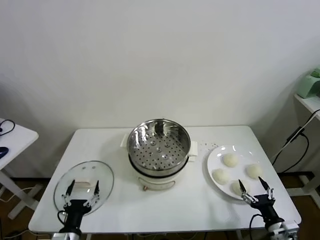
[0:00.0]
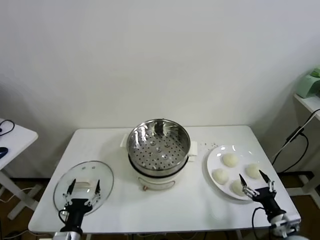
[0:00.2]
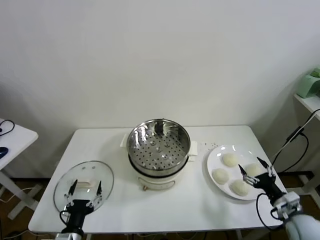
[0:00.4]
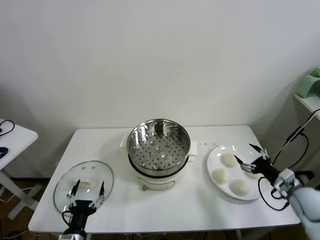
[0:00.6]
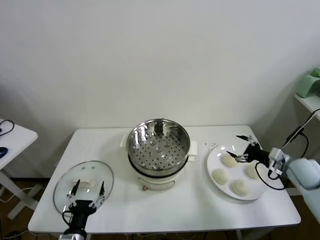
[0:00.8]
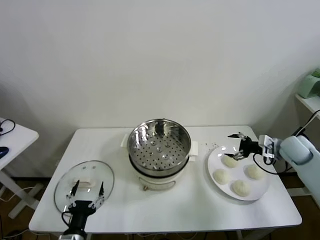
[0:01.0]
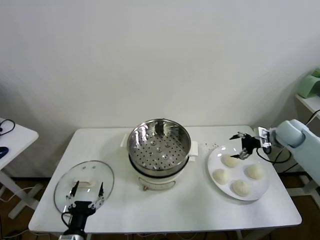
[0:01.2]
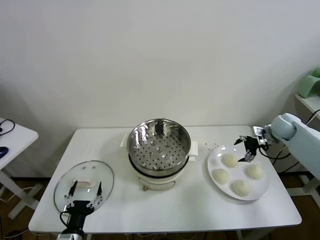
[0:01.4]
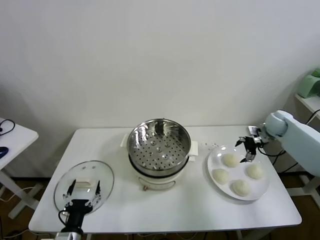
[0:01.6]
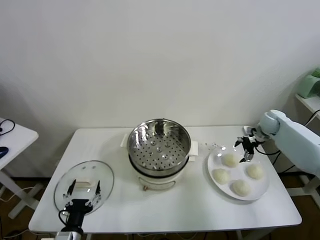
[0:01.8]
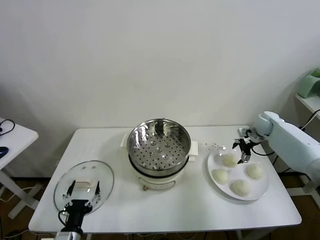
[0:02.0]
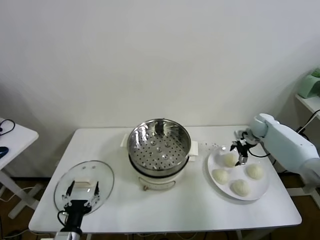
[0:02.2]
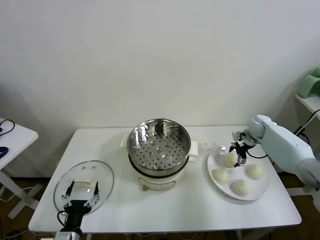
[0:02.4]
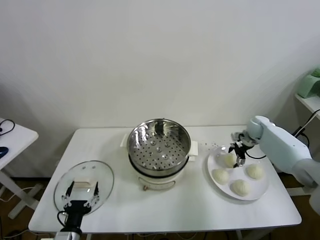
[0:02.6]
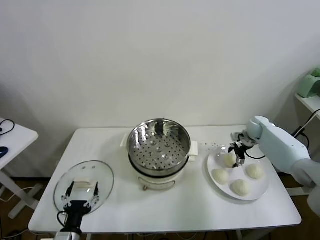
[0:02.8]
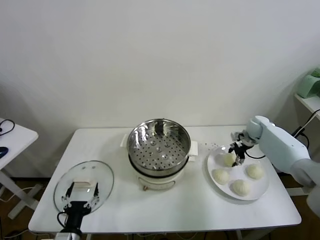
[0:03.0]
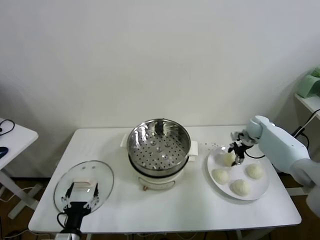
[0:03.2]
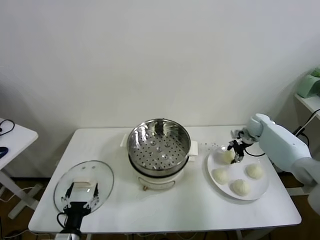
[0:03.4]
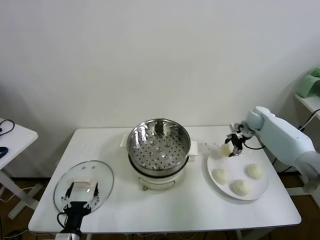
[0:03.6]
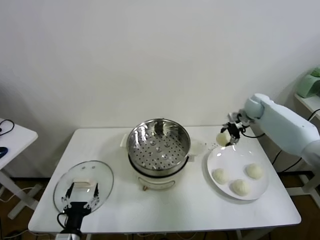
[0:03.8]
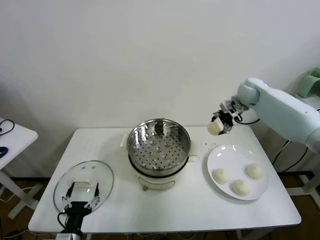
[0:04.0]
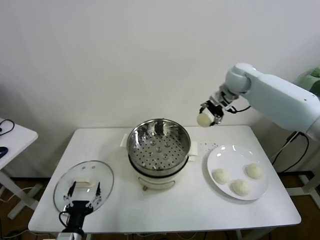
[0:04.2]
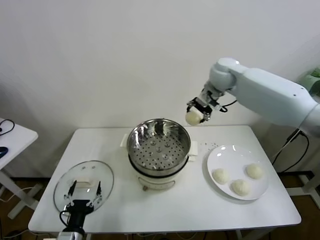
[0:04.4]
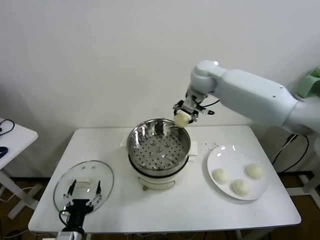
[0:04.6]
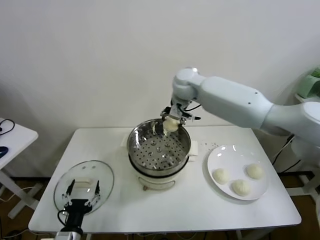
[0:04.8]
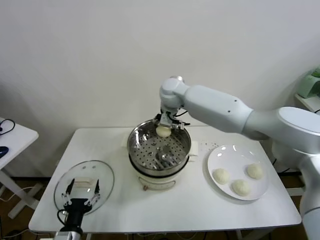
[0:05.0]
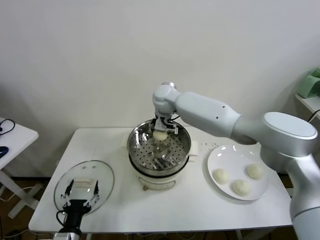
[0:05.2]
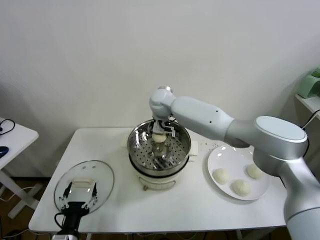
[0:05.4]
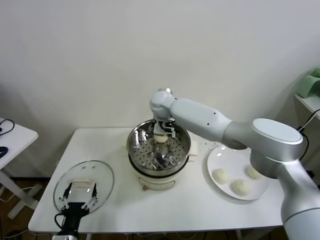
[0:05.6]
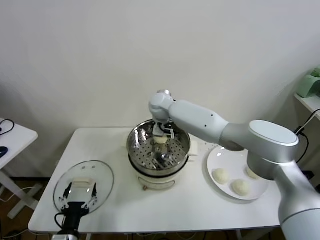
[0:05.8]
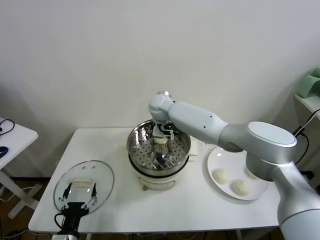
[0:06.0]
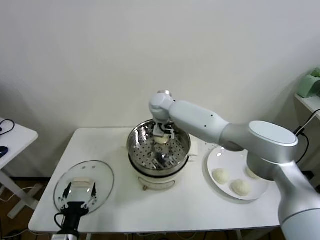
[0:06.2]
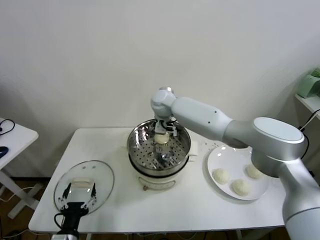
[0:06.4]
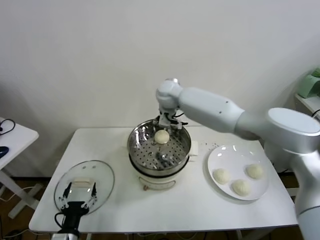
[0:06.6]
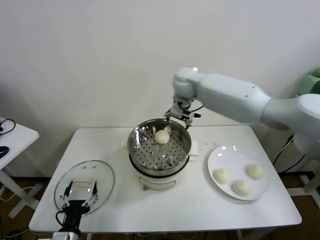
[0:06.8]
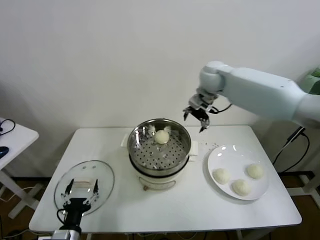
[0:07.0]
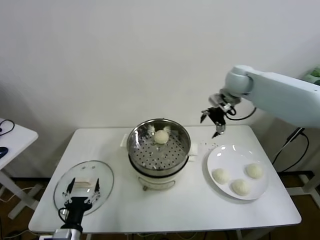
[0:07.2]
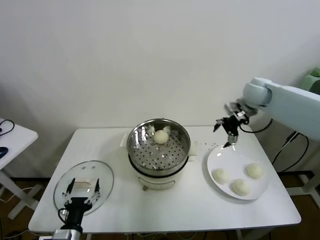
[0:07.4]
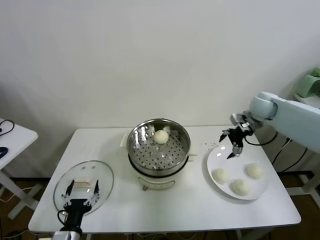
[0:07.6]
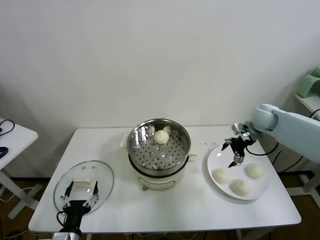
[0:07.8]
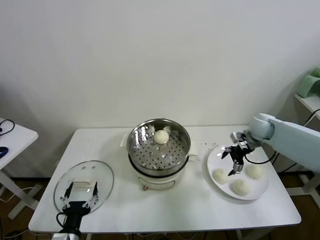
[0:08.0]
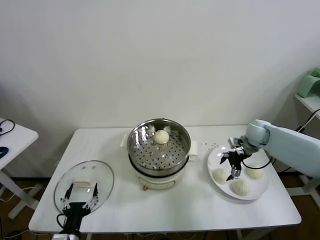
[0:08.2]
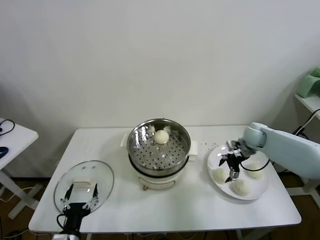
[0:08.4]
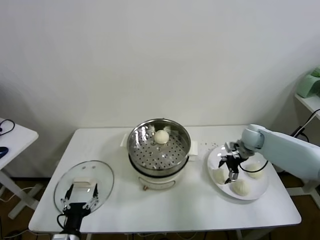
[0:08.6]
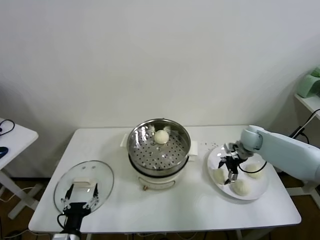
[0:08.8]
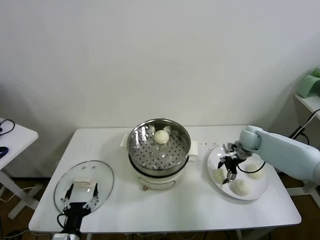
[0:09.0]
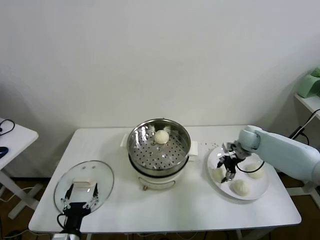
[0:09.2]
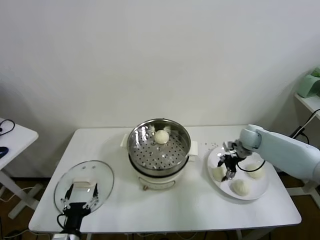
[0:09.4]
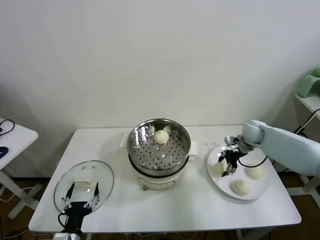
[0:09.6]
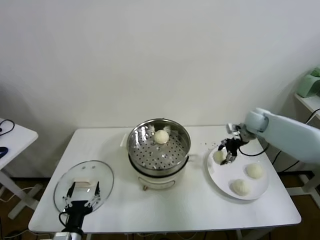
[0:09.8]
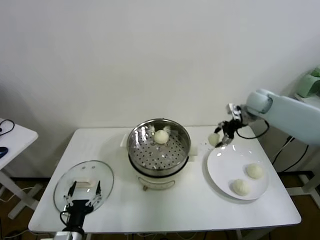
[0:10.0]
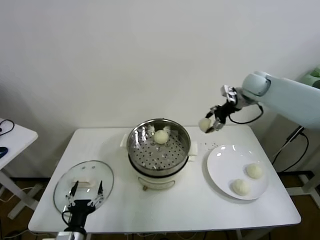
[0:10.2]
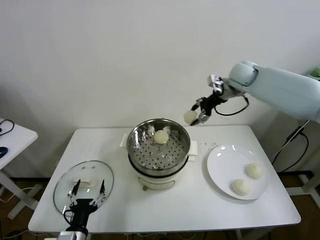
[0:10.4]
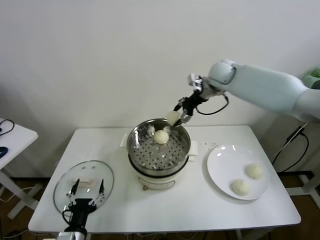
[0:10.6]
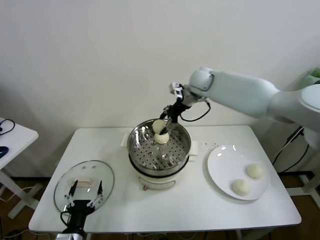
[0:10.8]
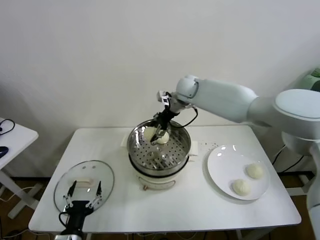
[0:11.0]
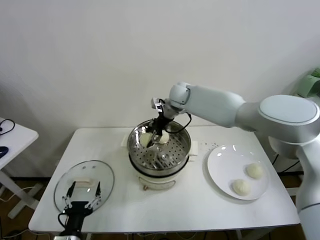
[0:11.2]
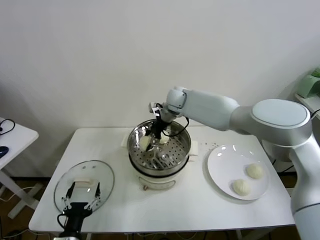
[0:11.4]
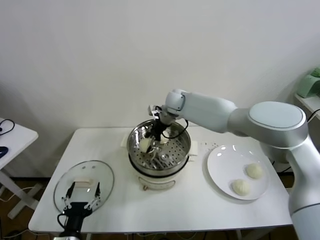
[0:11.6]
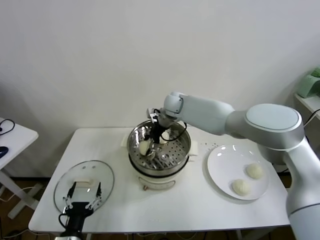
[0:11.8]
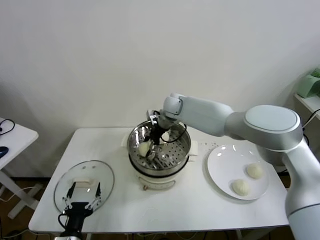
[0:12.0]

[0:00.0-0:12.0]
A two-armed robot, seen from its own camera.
Task of the whole recording: take steamed baozi put them in steamer.
Step, 0.0 to 3.0 s: Grasp the baozi in the plate with right gripper.
Step, 3.2 to 6.4 s: Place the baozi on the steamer with right gripper.
Step, 6.6 to 9.0 s: Grasp the baozi in the plate with right gripper.
1.6 to 3.0 s: The right gripper goes about 5 cm downward, and closes its fingers.
3.0 to 4.4 s: The right gripper goes some 35 cm upward and to the left.
4.4 to 6.0 s: The right gripper shifts some 20 cm to the left and downward, and opens.
6.0 to 7.6 s: The right gripper moves to the right, roughly 35 cm.
7.6 to 9.0 s: The right gripper heads downward, covering roughly 15 cm, and closes up.
9.0 to 10.4 s: The right gripper shifts some 25 cm upward and to the left.
10.4 to 12.0 s: The right gripper moves to the left and downward, some 25 cm.

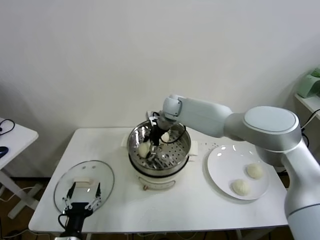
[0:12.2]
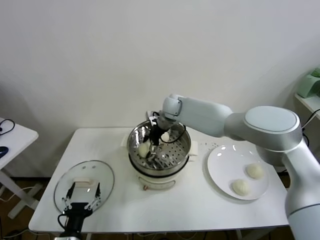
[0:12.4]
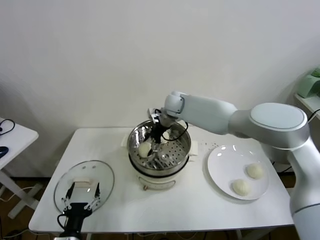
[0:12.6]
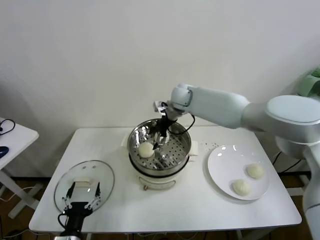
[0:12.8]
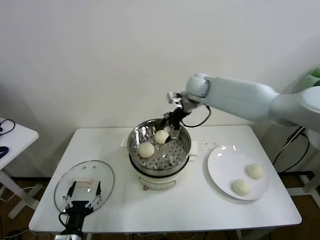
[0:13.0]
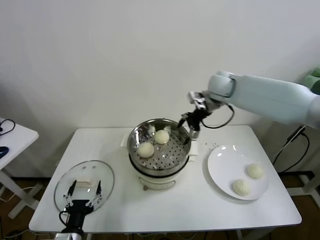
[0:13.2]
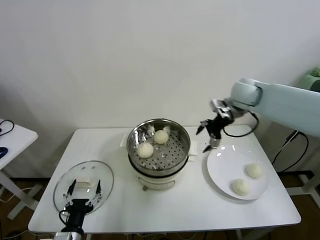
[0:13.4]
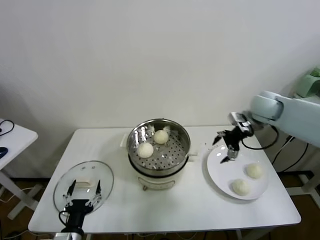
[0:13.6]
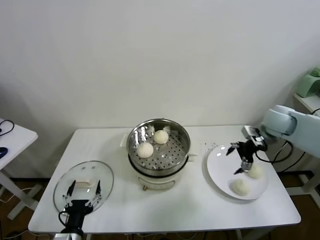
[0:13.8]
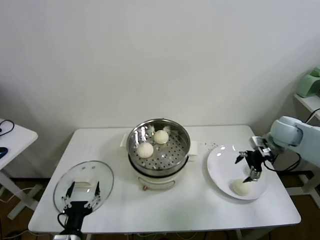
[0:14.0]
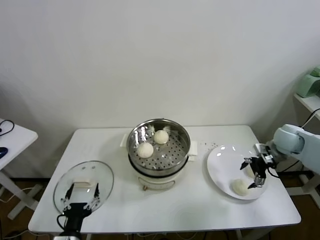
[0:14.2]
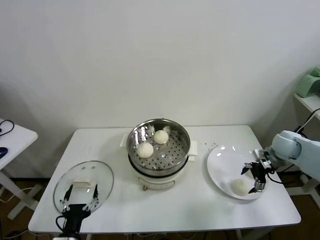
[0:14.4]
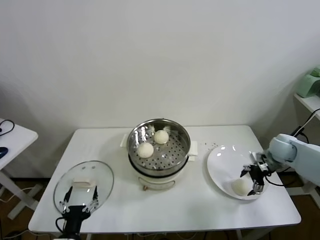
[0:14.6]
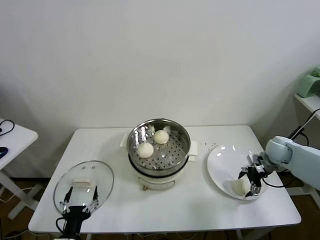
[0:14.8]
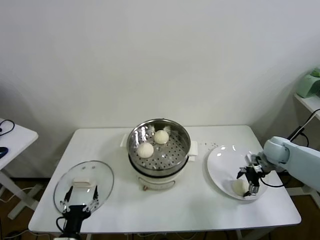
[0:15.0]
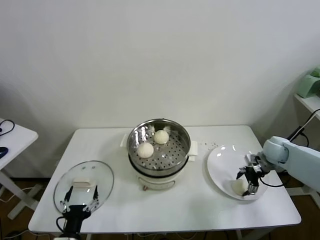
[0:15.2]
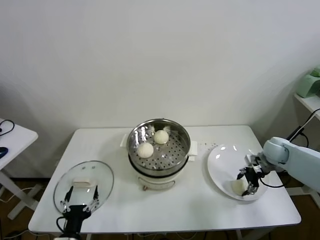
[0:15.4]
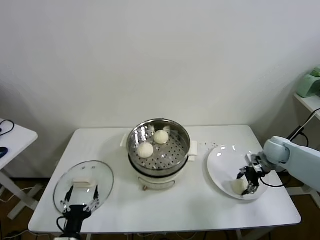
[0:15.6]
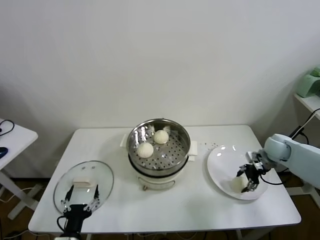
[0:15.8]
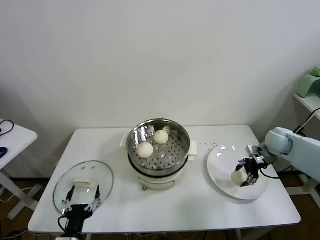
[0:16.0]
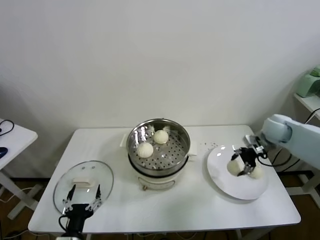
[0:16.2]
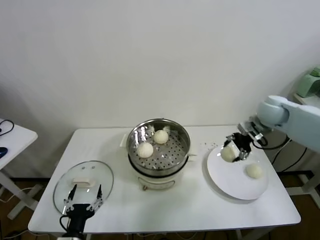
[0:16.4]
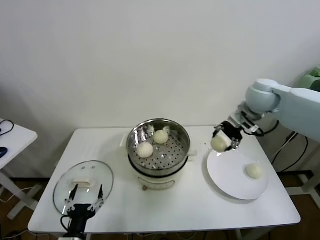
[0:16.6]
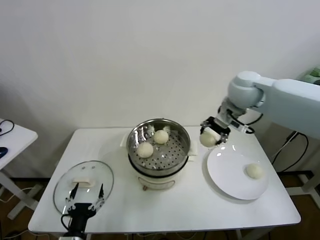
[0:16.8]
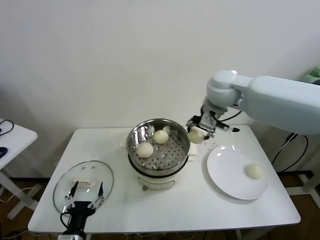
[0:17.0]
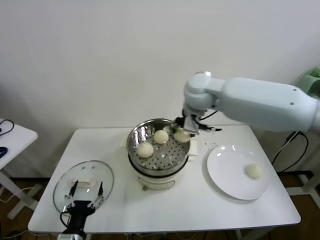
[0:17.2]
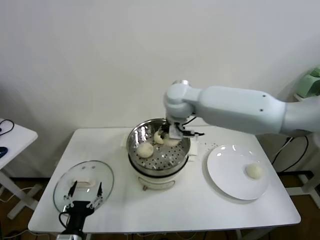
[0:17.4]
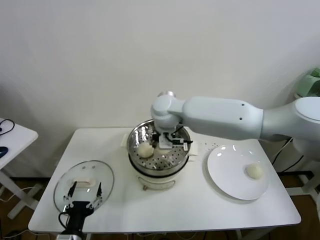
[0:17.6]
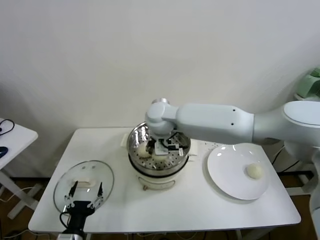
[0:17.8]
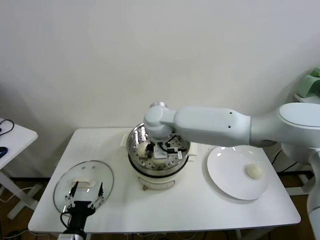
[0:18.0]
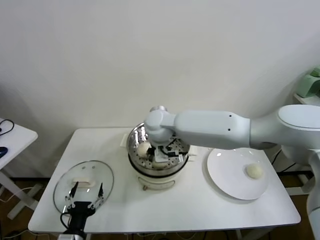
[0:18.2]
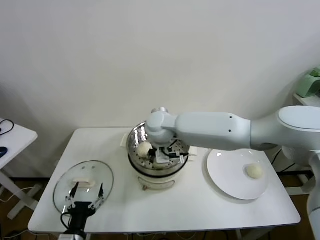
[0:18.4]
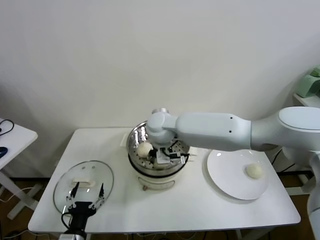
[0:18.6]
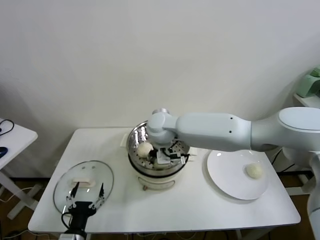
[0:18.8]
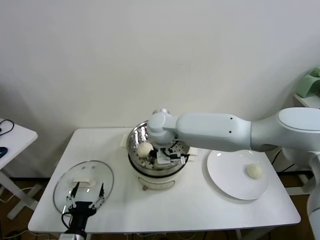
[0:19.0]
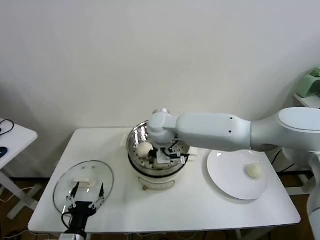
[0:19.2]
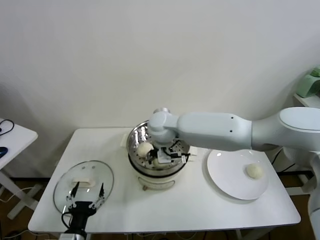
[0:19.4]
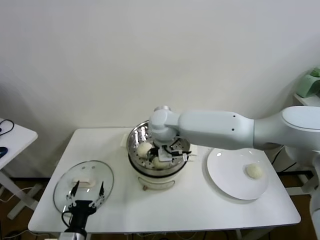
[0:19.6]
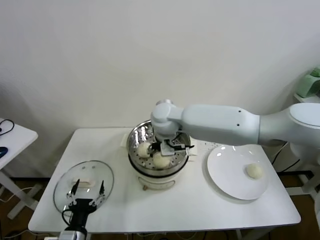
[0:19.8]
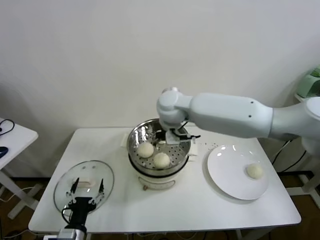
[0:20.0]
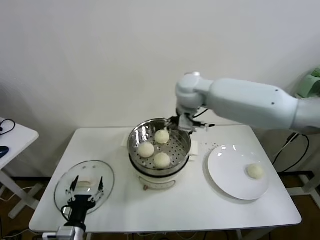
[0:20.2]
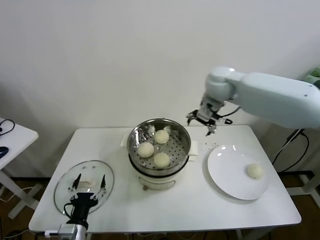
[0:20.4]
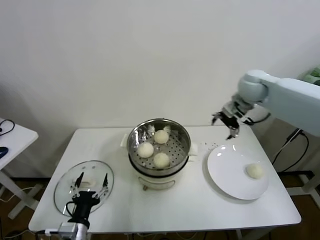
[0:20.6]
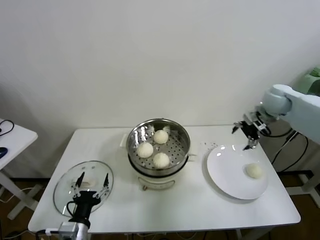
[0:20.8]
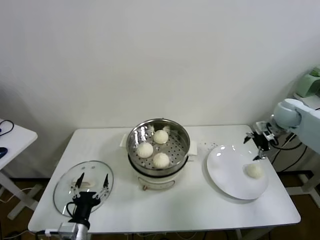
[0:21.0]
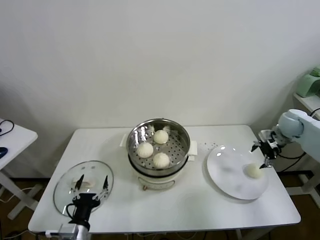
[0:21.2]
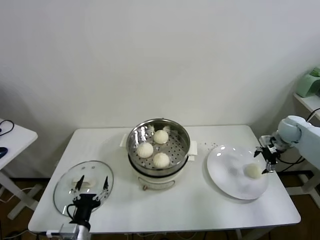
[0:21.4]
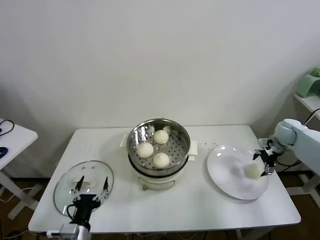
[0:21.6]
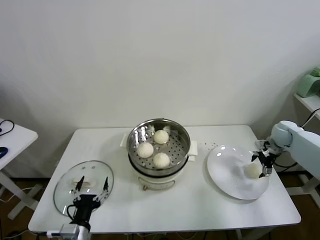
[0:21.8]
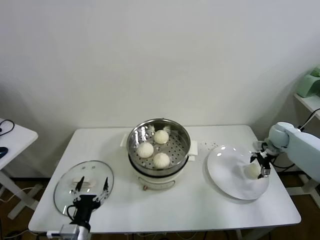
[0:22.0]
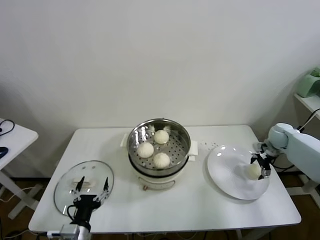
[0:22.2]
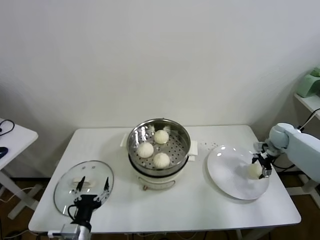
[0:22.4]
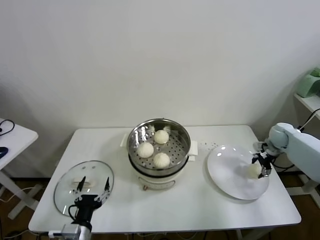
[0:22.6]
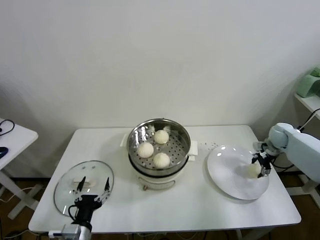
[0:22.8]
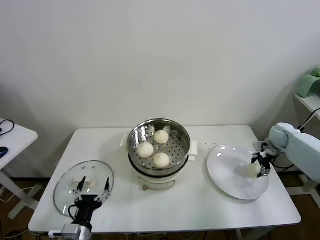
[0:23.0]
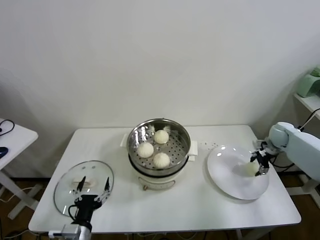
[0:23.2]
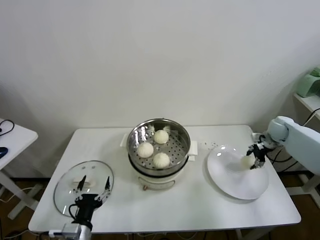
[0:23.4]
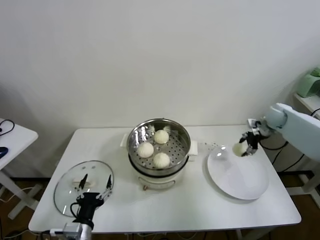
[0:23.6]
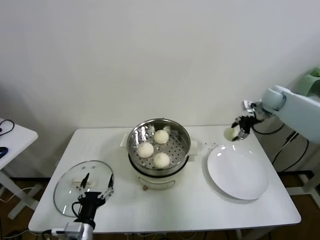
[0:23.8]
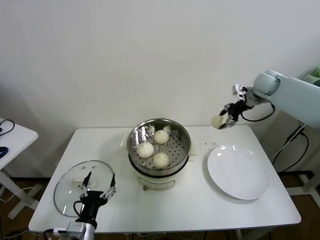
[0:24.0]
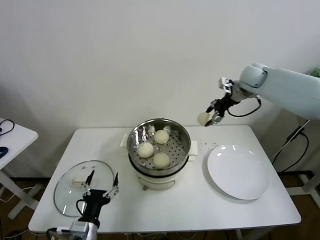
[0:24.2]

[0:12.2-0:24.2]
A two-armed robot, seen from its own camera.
Task of the whole recording: take steamed baozi put them in steamer.
Step, 12.8 to 15.2 s: Grasp the baozi in the plate with right gripper.
Step, 15.6 to 19.6 s: Place the baozi on the steamer with right gripper.
Step, 19.8 to 22.8 s: Grasp the baozi in the plate with right gripper.
12.2 to 13.8 s: The right gripper goes roughly 35 cm to the right.
13.8 to 15.2 s: The right gripper travels downward by roughly 15 cm, and closes.
15.2 to 16.6 s: The right gripper travels upward and to the left by roughly 25 cm, and closes.
16.6 to 18.2 s: The right gripper moves to the left, approximately 30 cm.
18.2 to 19.8 s: The right gripper opens.
19.8 to 21.2 s: The right gripper shifts about 50 cm to the right.
21.2 to 22.6 s: The right gripper goes some 10 cm downward, and closes.
22.6 to 24.2 s: The right gripper moves upward and to the left, about 25 cm, and closes its fingers.
